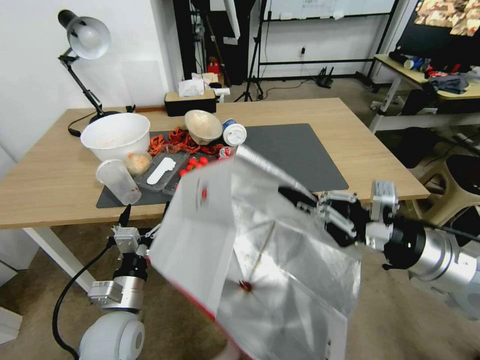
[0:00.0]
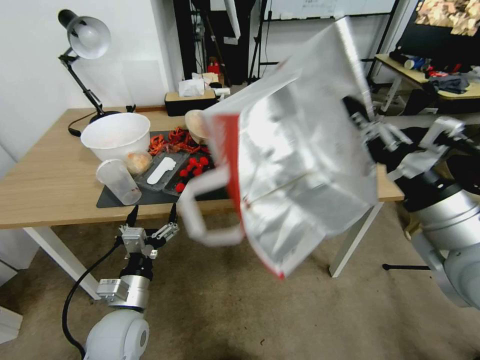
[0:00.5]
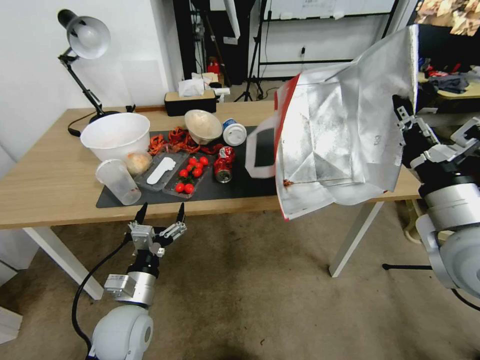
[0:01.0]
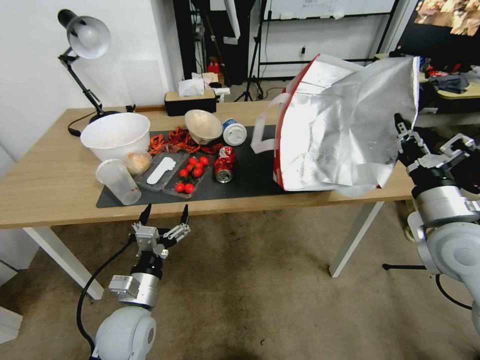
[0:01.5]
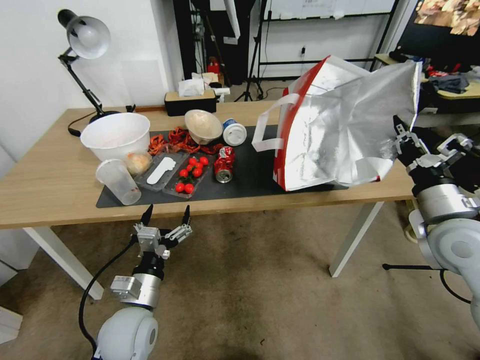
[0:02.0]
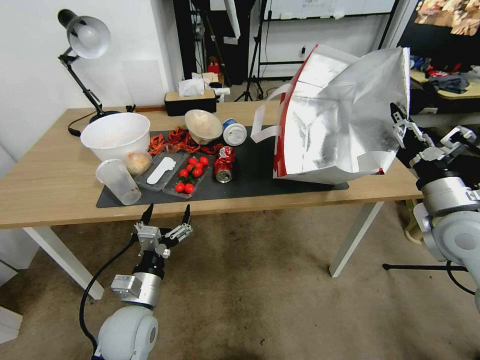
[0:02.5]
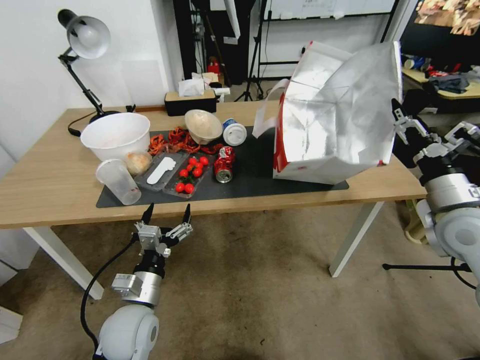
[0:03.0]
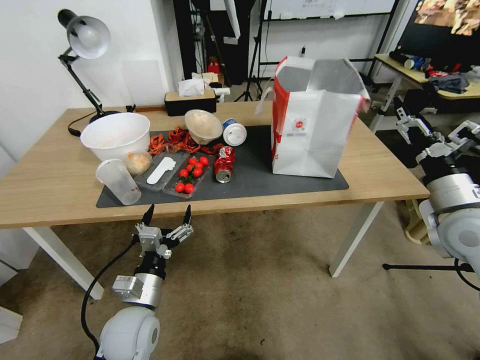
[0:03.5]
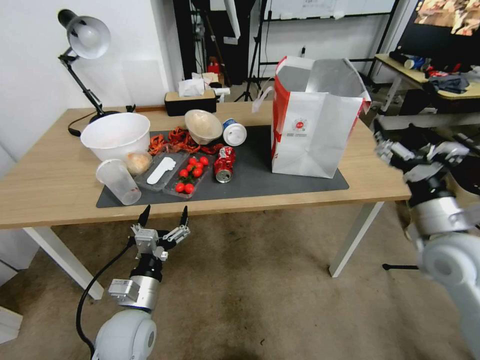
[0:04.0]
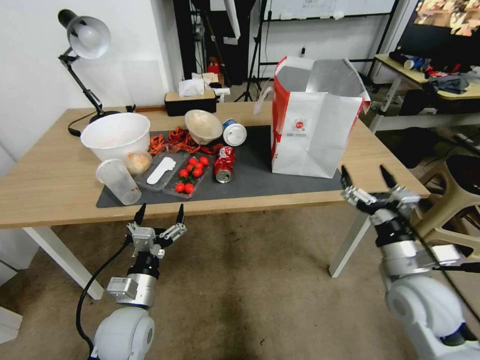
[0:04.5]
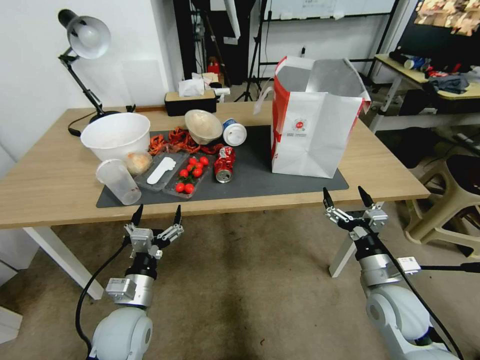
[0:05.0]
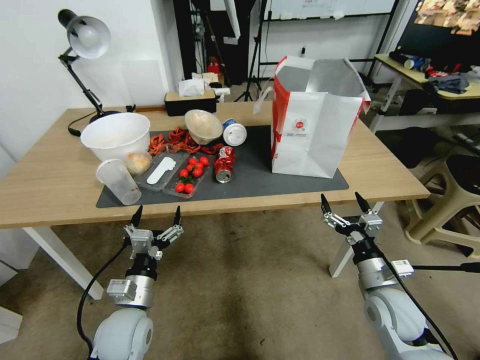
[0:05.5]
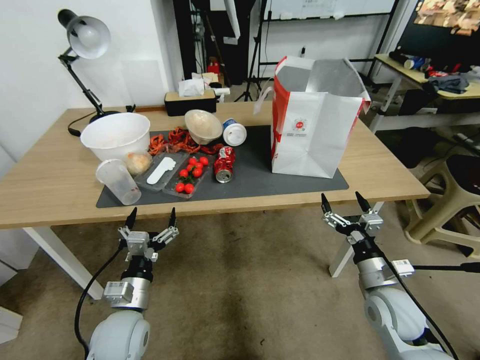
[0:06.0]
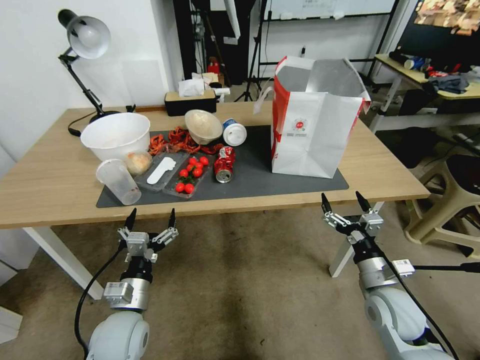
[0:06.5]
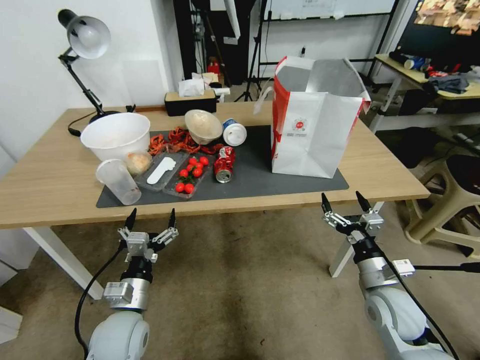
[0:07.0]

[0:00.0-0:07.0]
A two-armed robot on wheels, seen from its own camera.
Task of the whole recording: Pick up the food delivery bag from the floor and place it on the table.
0:00.0 to 0:02.0: The right gripper heads forward, covering approximately 5 cm.
0:02.0 to 0:03.5: The right gripper opens.
0:03.5 to 0:05.0: The right gripper heads downward and to the left, covering approximately 20 cm.
0:05.0 to 0:07.0: The grippers stay close to where they were, moving slightly.
